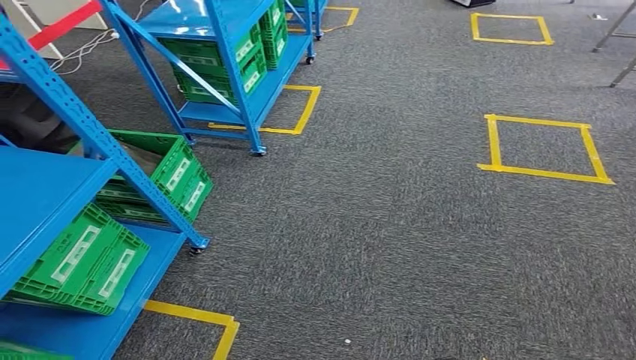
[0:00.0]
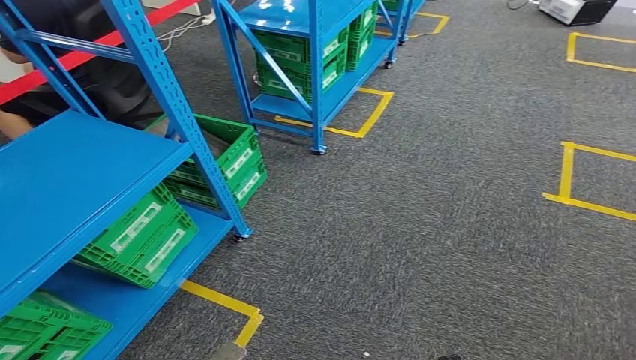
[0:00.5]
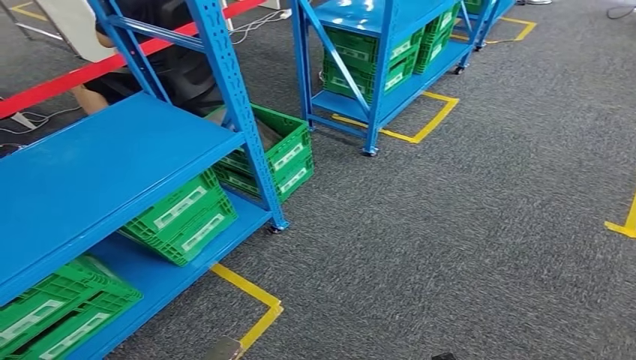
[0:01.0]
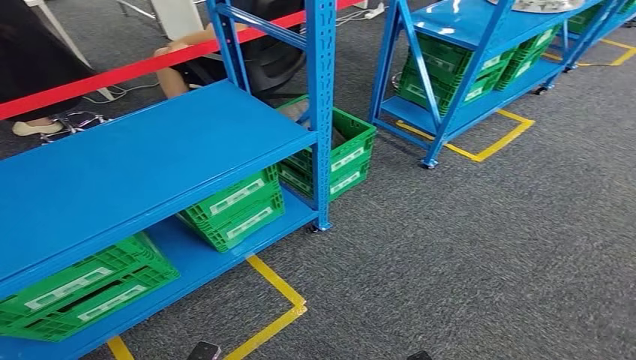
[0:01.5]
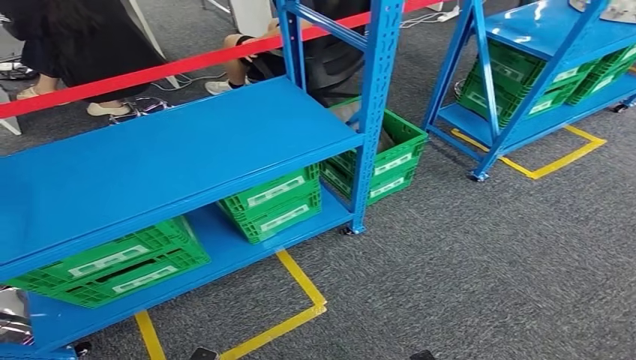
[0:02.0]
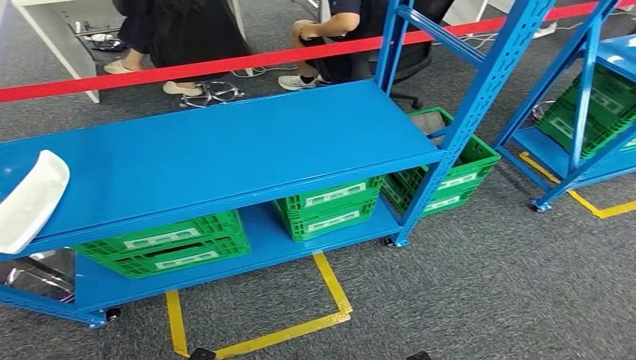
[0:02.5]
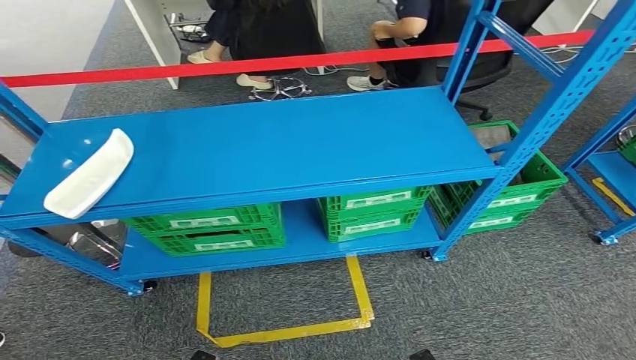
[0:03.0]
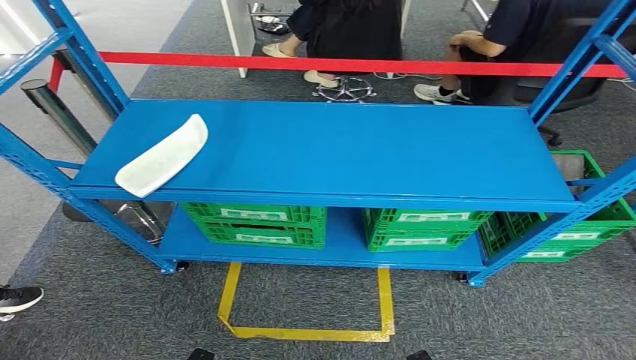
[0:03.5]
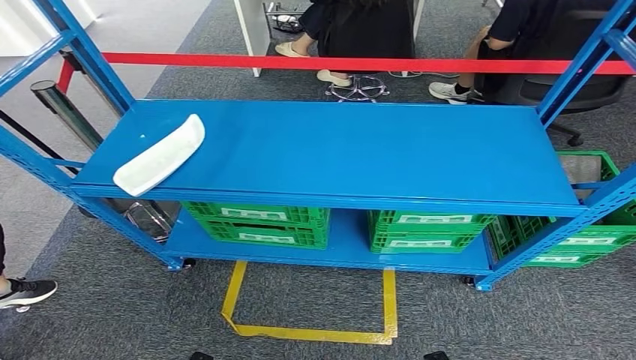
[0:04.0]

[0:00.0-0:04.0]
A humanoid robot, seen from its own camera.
Step, 0:00.0 to 0:04.0: Move to the initial position of the workbench.
